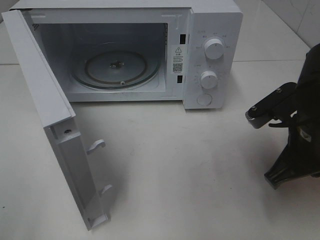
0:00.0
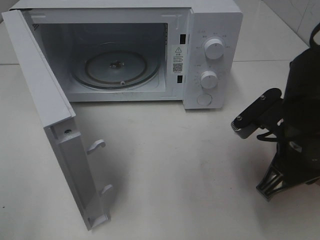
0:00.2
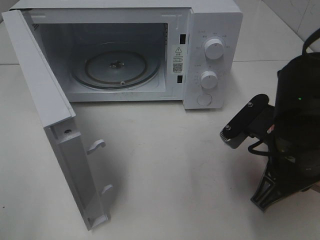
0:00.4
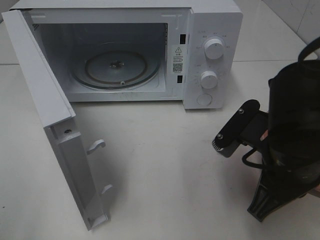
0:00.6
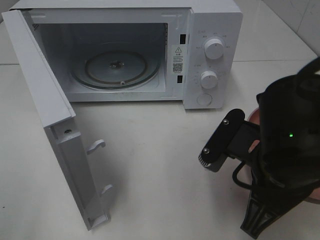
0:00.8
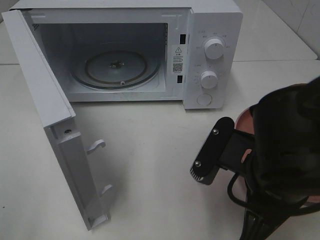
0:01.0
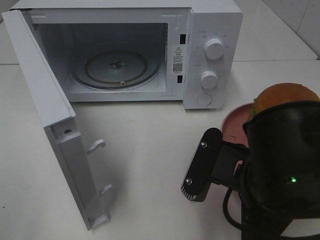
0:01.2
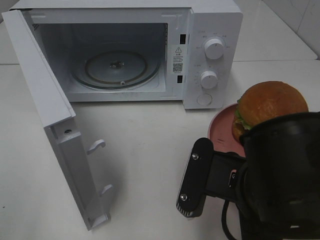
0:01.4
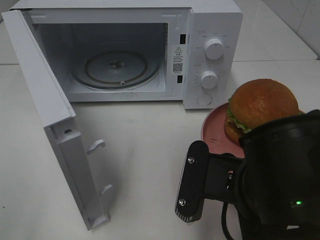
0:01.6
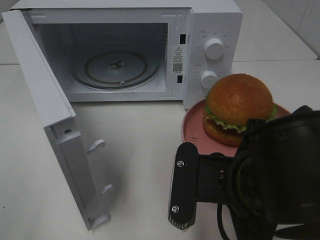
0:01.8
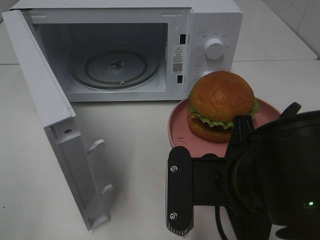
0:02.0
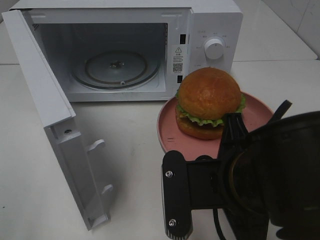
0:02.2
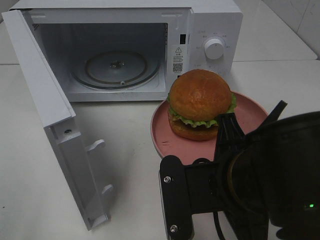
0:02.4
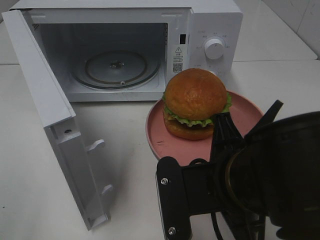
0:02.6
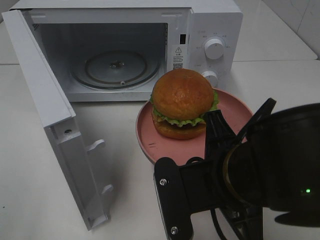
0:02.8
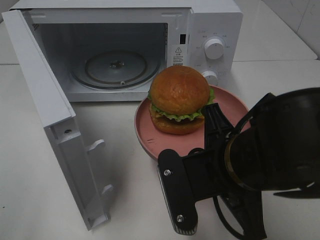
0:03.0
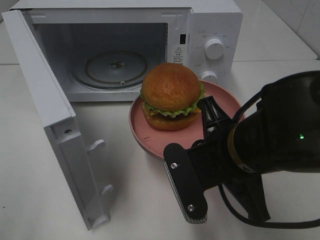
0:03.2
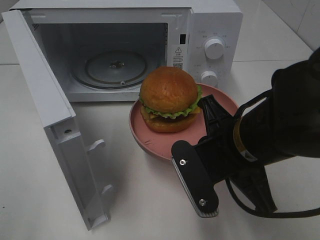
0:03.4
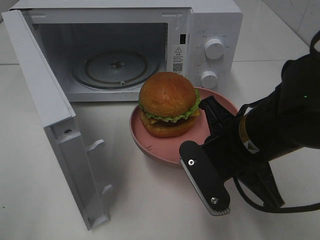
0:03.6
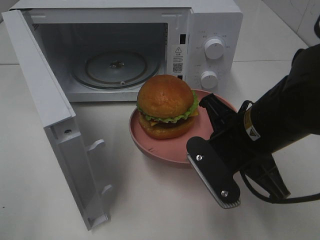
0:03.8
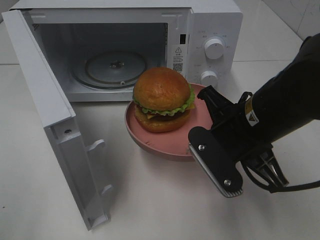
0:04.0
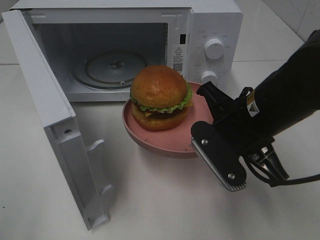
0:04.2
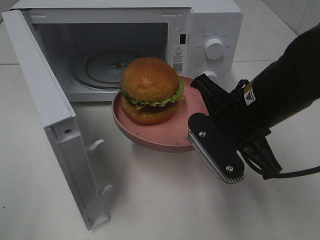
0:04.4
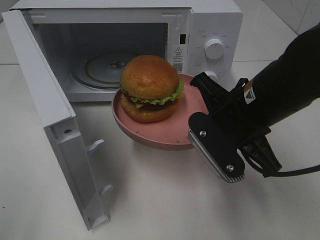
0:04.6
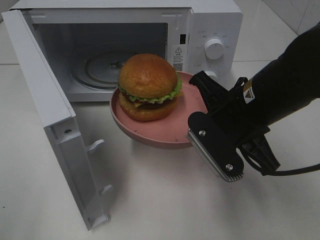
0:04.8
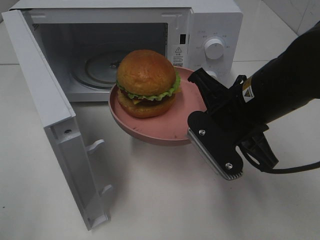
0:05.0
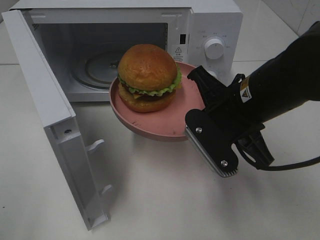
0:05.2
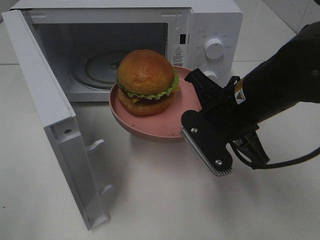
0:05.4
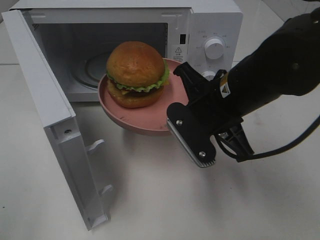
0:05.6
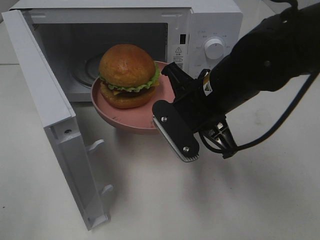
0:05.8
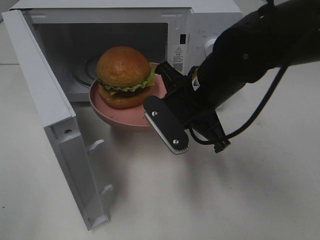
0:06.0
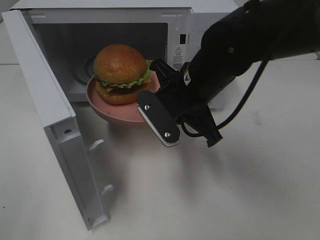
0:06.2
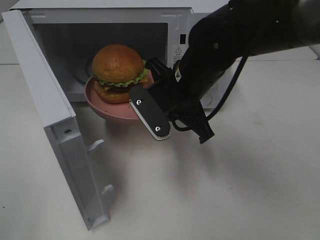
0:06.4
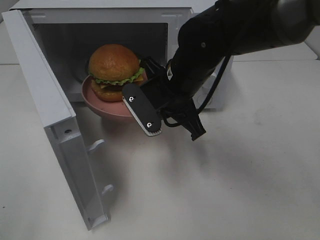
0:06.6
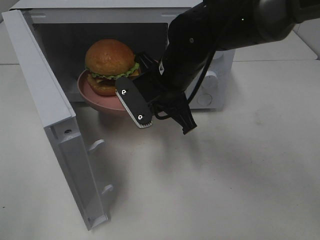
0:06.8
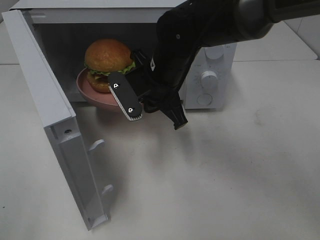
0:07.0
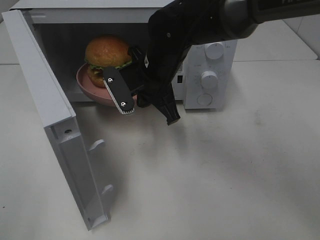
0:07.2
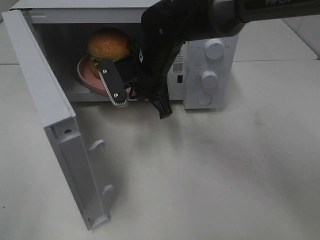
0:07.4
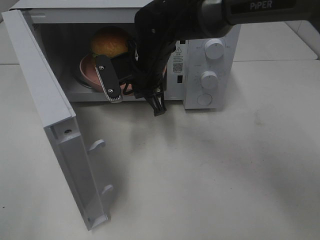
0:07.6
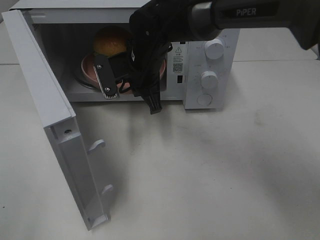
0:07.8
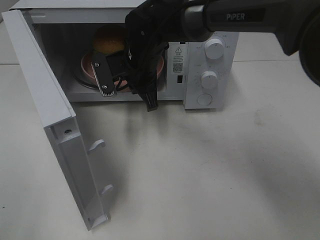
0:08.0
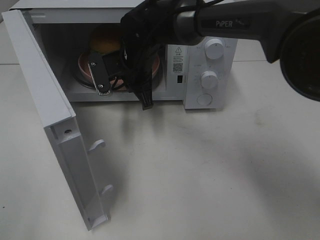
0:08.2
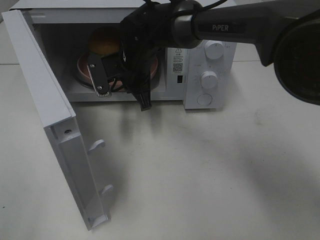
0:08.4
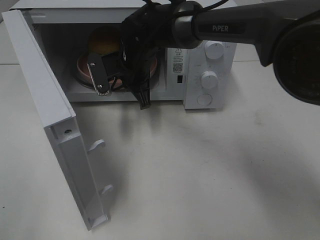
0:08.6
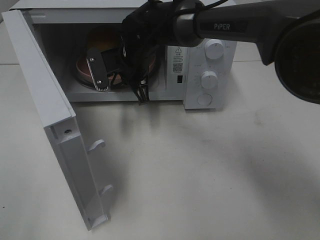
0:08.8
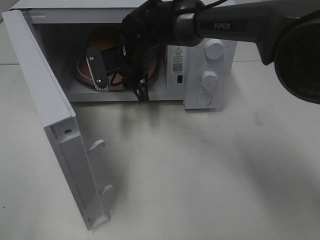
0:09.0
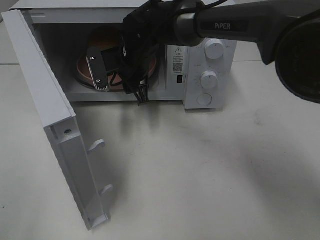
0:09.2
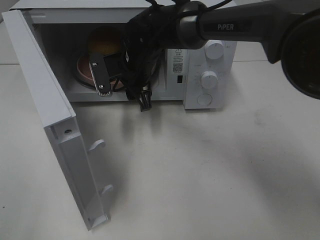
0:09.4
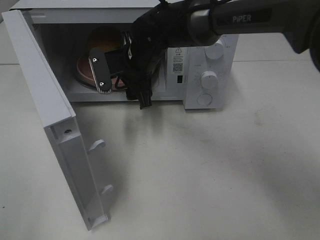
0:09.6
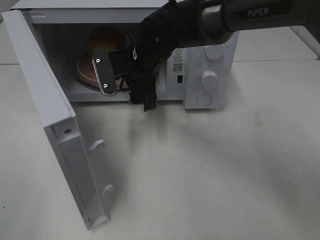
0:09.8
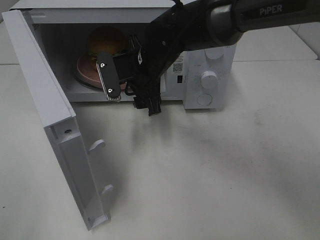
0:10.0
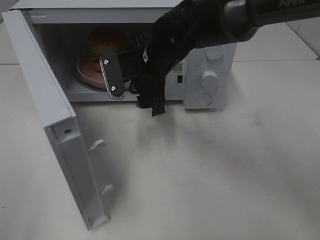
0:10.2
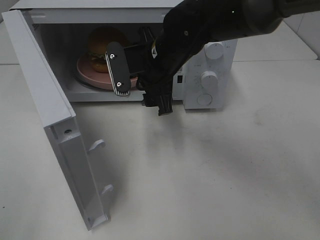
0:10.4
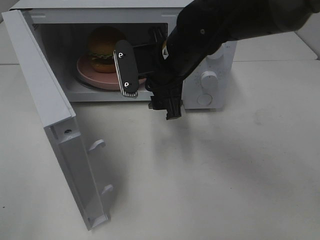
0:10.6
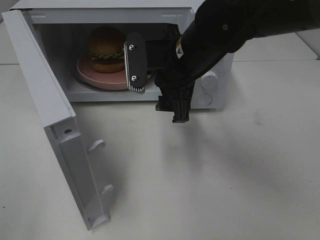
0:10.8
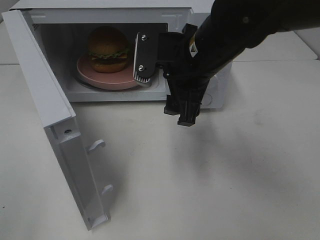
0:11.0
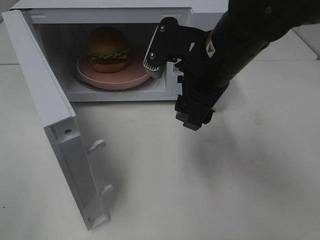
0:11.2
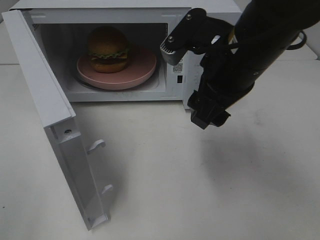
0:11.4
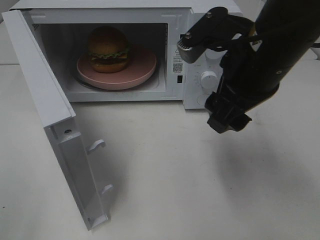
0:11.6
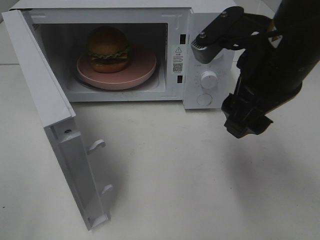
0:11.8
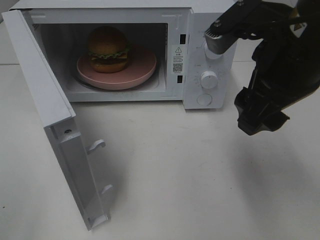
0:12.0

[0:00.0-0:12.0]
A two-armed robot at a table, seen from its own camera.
Task of the whole recording: Heat the burger.
Step, 0:00.0 to 0:09.2: Right hand: place the plate in the microwave.
0:00.0 to 0:01.6: The right gripper moves to the left and backward, roughly 15 cm.
0:03.0 to 0:04.4: The right gripper goes roughly 5 cm forward.
0:04.4 to 0:06.0: The right gripper moves to the left and forward, roughly 10 cm.
0:06.0 to 0:07.6: The right gripper moves forward and to the left, about 15 cm.
0:07.6 to 0:09.0: The right gripper changes place by some 5 cm, and opens.
0:09.0 to 0:10.4: The right gripper is displaced backward and to the right by roughly 10 cm.
0:10.4 to 0:12.0: The right gripper goes about 20 cm backward, to the right and upward.

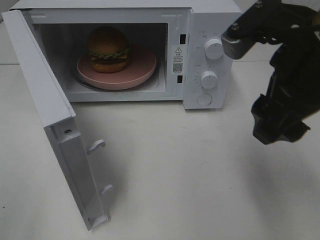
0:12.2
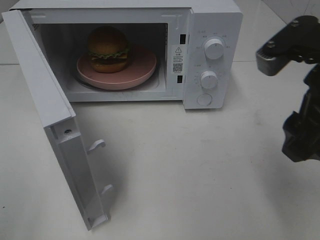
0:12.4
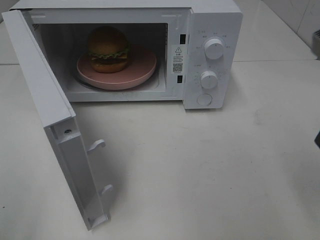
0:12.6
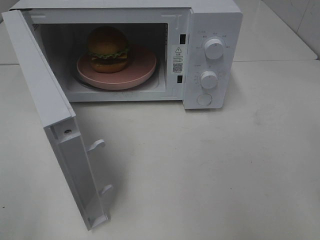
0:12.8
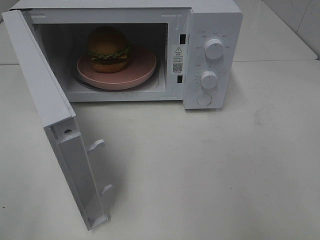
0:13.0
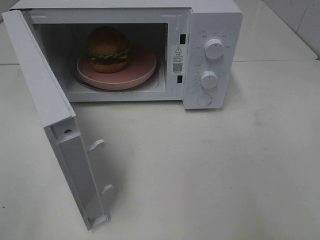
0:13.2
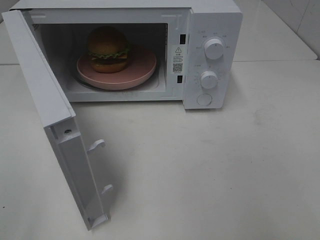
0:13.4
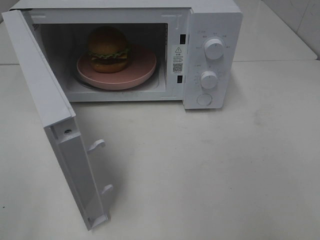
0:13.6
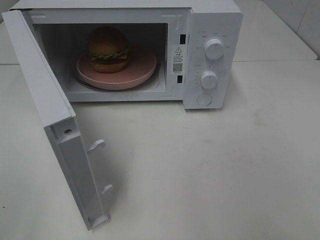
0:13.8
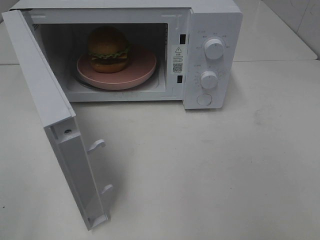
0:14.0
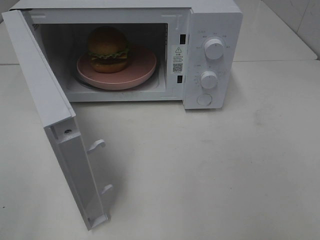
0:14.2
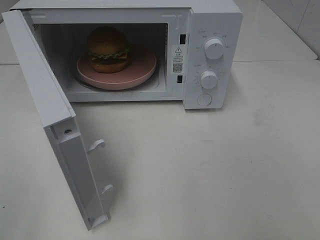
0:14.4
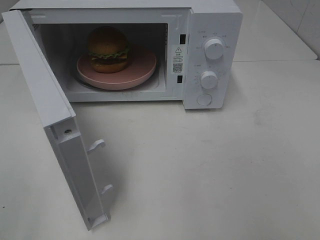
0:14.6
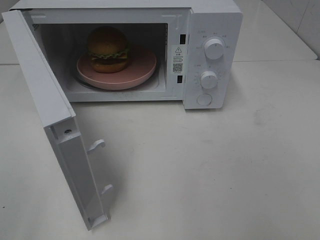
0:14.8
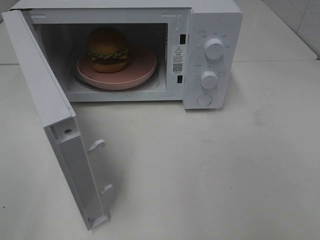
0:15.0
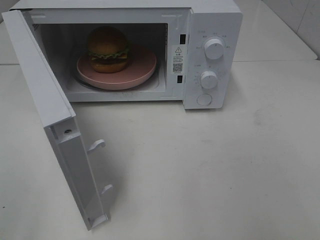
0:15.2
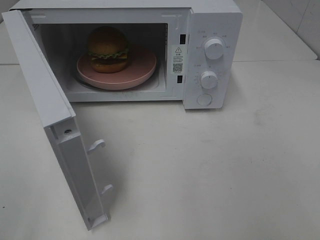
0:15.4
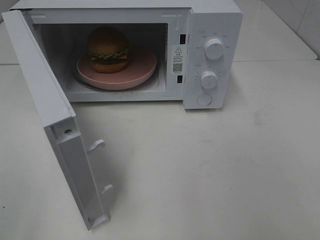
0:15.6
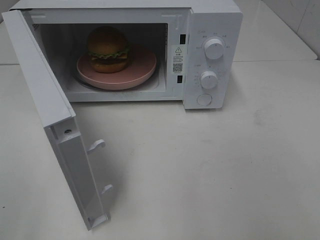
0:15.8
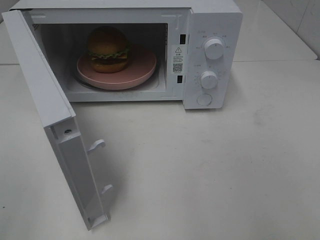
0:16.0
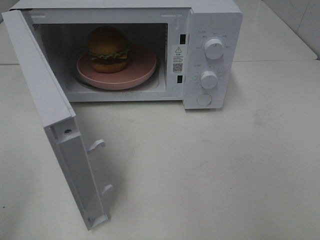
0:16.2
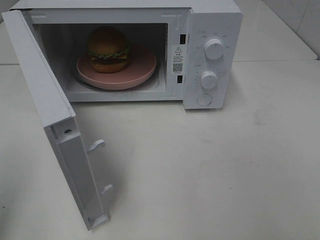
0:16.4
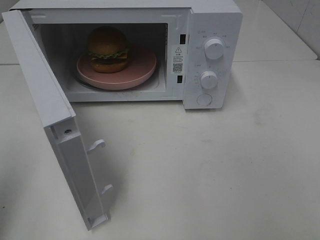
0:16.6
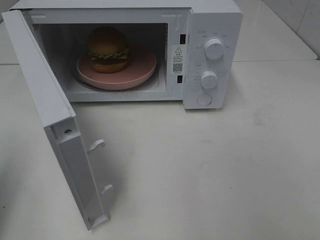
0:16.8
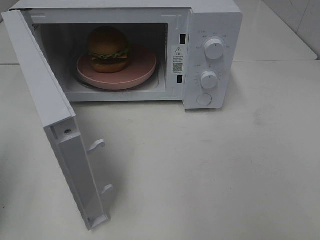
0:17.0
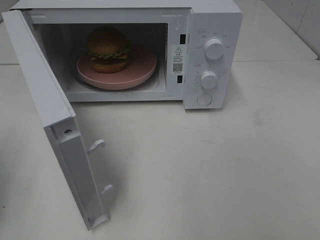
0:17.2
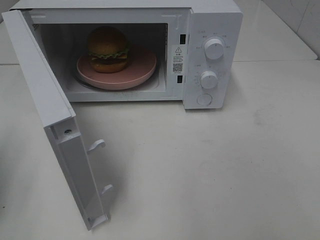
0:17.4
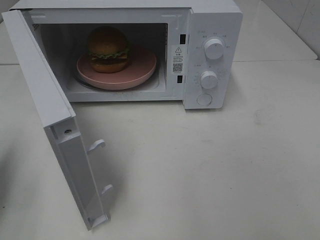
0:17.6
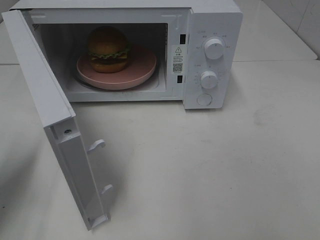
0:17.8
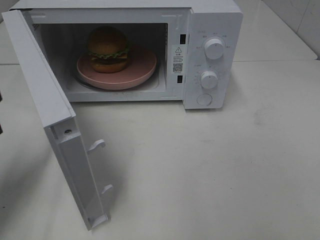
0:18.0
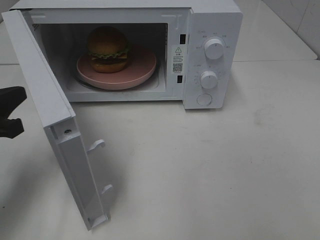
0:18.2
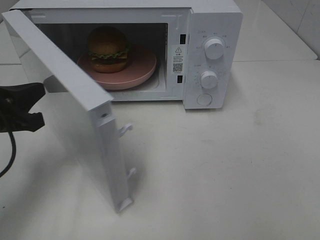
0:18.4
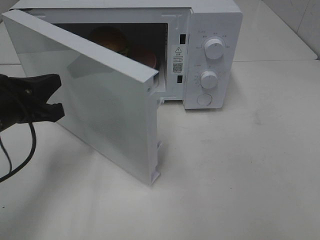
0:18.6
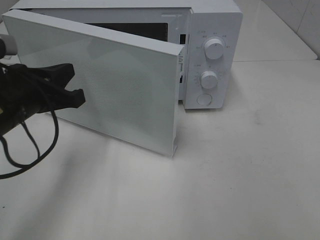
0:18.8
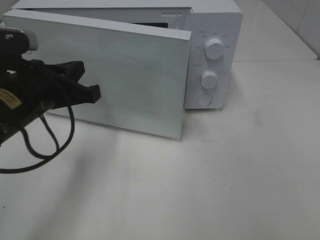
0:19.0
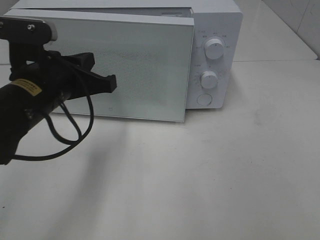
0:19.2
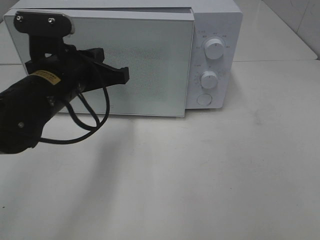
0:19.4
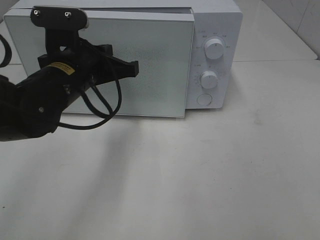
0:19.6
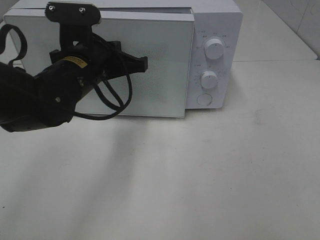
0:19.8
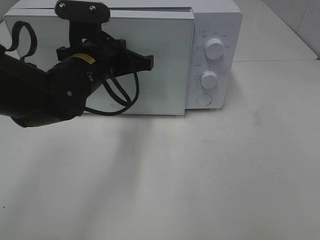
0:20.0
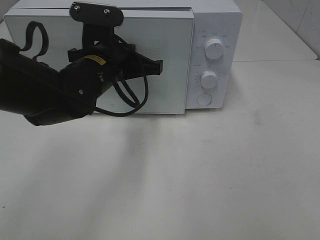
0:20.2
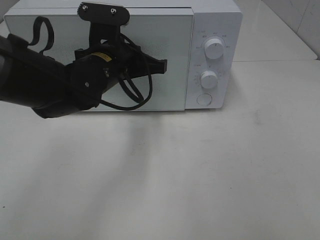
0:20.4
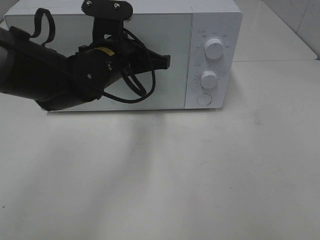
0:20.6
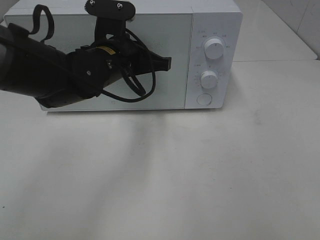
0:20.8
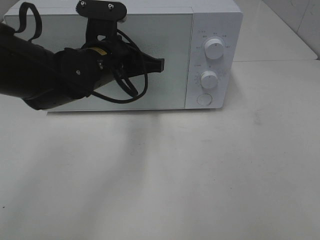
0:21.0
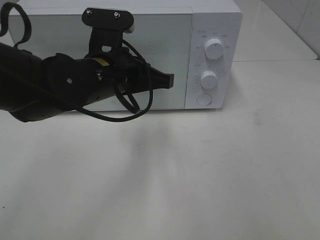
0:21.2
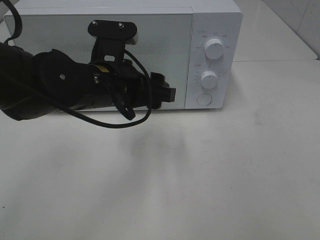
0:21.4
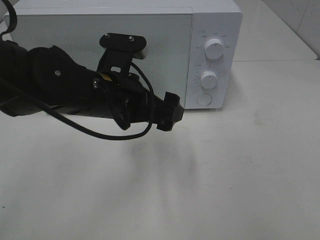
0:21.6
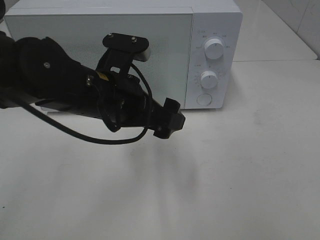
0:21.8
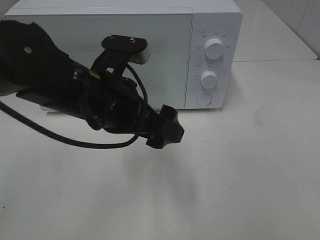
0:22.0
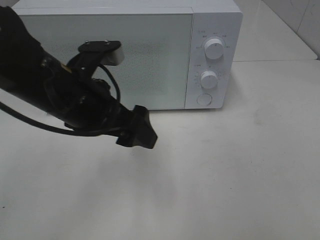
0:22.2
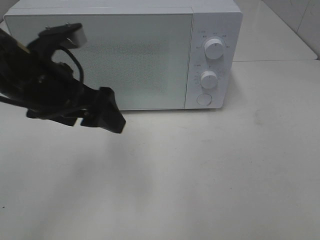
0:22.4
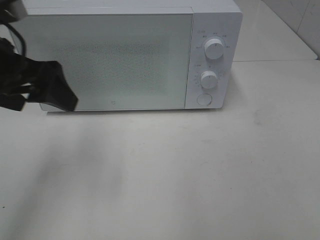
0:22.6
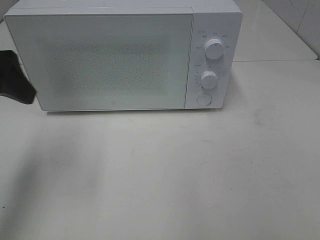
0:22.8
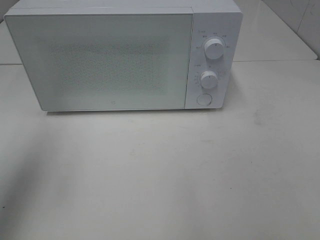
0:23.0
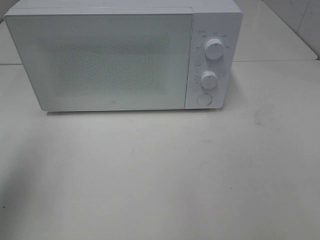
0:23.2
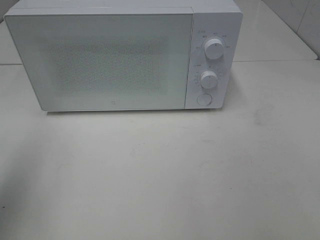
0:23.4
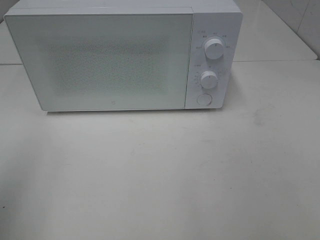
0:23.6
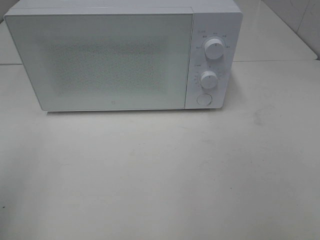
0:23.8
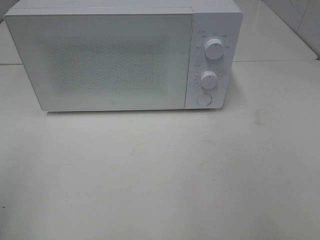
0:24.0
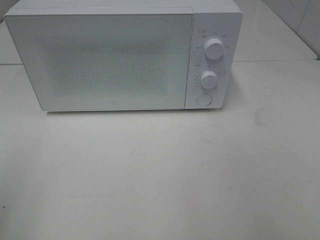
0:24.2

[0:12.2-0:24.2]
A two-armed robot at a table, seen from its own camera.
Task of the whole recording: Heat the burger.
Step, 0:12.2 to 0:21.4: Left hand: close the microwave door.
0:12.2 to 0:13.8: The right gripper moves backward and to the right, about 25 cm.
0:13.8 to 0:15.2: Neither gripper changes place.
0:15.2 to 0:16.6: The left gripper moves forward, about 10 cm, and closes.
0:16.6 to 0:18.2: The left gripper heads downward and forward, covering some 20 cm.
0:18.2 to 0:19.8: The left gripper heads to the right and forward, covering approximately 20 cm.
0:19.8 to 0:21.2: The grippers make only small movements.
0:21.2 to 0:22.6: The left gripper heads to the left and upward, covering approximately 15 cm, and opens its fingers.
0:22.6 to 0:24.2: The left gripper moves backward and to the left, about 20 cm.
